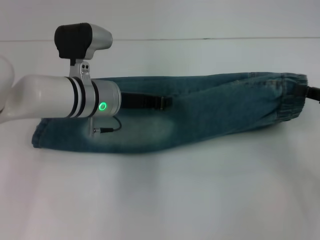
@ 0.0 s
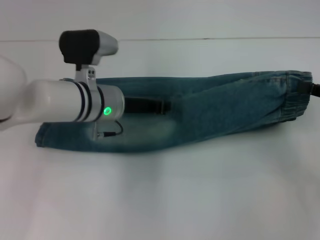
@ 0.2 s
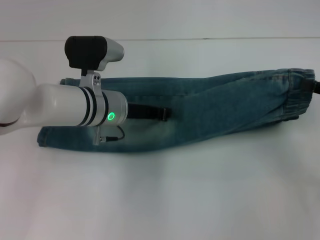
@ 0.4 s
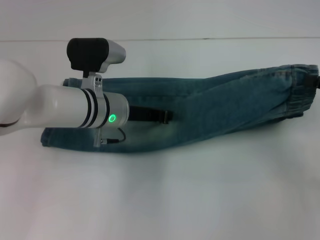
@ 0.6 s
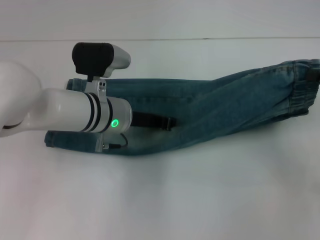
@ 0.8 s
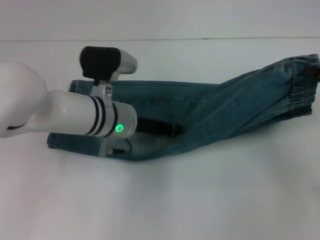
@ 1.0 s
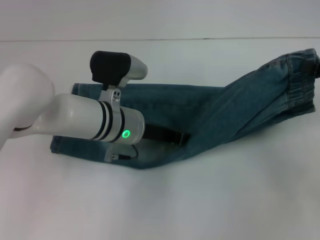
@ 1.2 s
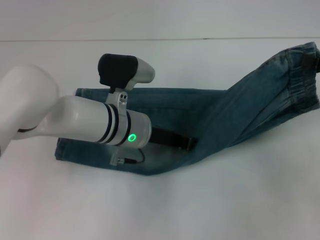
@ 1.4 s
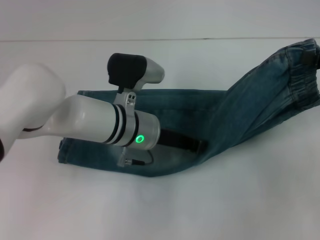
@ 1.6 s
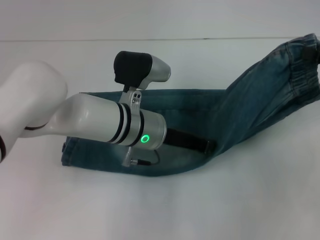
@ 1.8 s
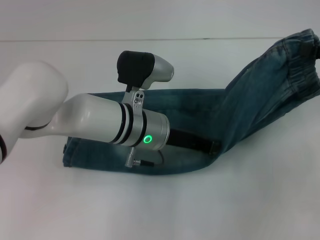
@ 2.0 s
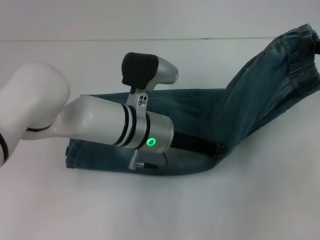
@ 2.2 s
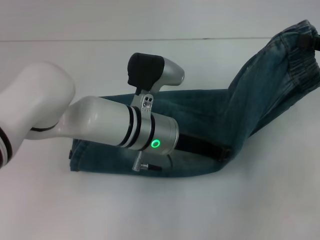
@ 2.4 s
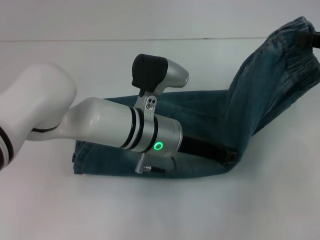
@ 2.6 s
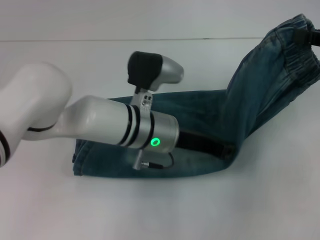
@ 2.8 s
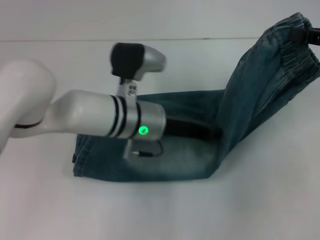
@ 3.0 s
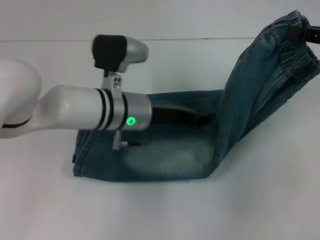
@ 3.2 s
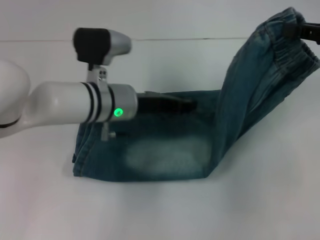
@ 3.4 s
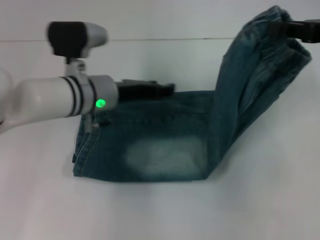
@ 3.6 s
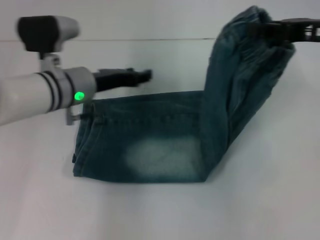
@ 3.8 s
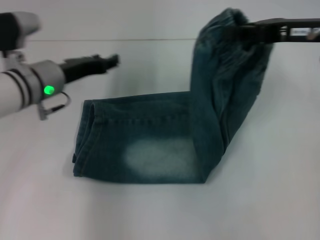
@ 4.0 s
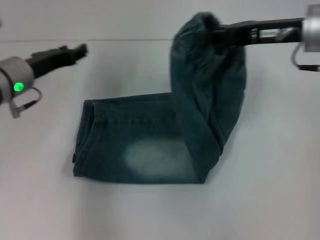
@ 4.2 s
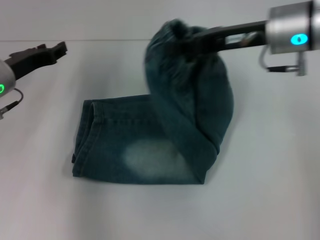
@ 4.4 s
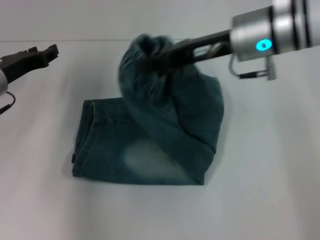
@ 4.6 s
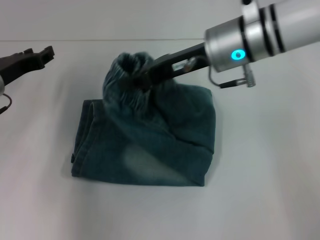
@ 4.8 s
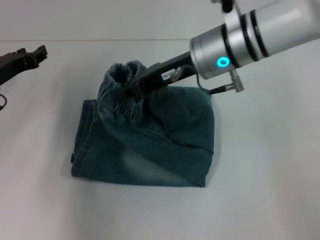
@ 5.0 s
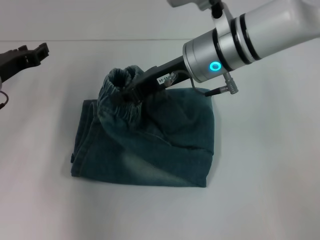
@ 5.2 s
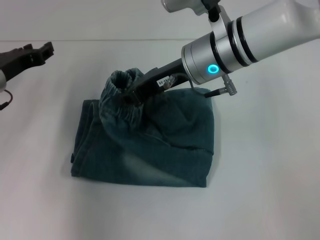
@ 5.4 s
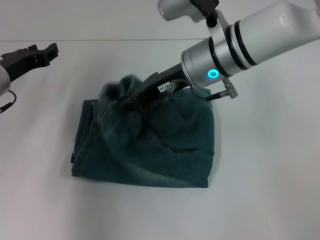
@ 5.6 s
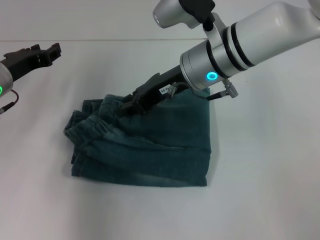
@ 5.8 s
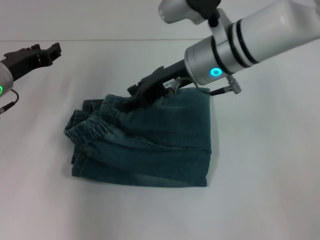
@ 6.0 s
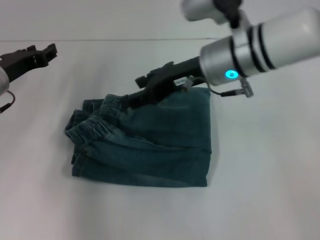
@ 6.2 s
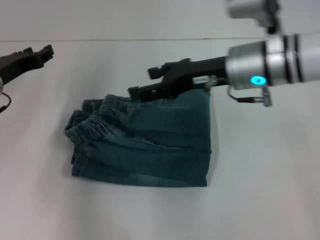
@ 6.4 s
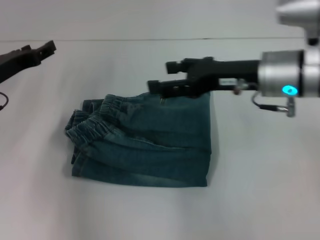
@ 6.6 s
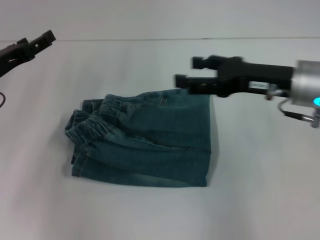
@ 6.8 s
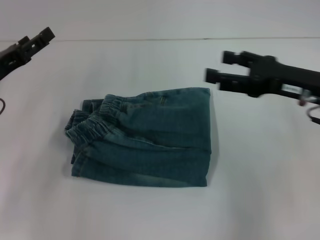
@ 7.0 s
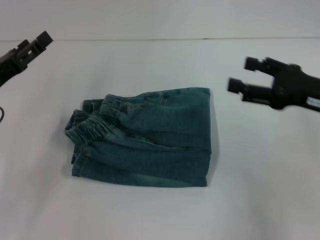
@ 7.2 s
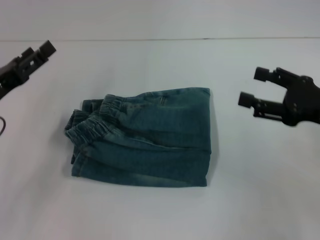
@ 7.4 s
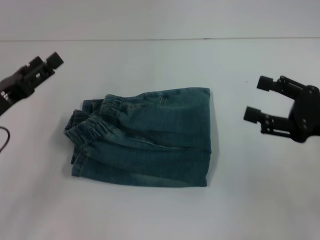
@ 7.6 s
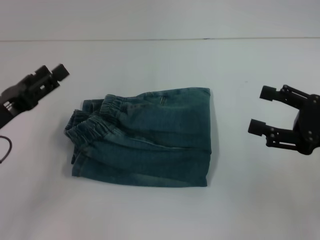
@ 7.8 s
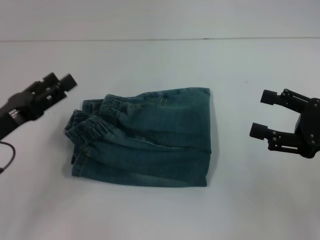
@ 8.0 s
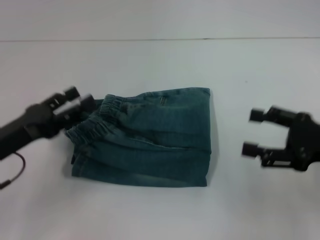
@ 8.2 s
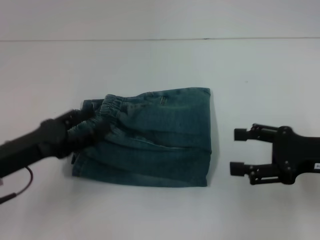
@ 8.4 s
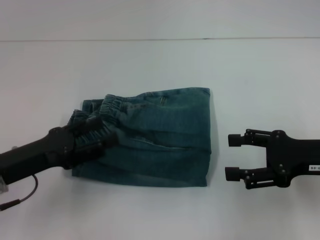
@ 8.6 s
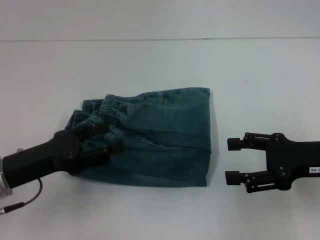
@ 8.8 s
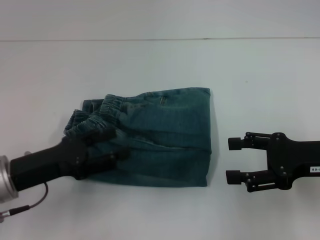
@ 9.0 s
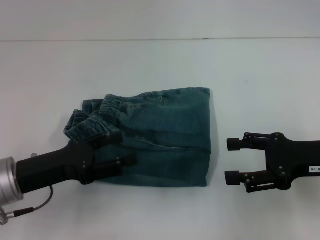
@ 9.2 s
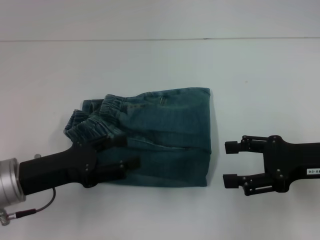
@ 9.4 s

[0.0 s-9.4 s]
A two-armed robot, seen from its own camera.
Step, 0.0 to 3.0 s: Press the middle of the pants with your left hand.
Step, 3.2 to 5.8 s: Fold to the left with your right hand.
0.0 to 1.6 s: The right gripper goes some 5 cm upward, while the left gripper is displaced to the right by about 5 cm.
3.2 to 4.8 s: Both grippers travel together to the left, some 20 cm. The left gripper opens its fingers.
4.8 to 6.2 s: The right gripper opens its fingers.
6.2 to 7.8 s: The left gripper goes about 10 cm backward, and opens. Meanwhile the right gripper moves to the right and backward, about 25 cm, and opens its fingers.
7.8 to 9.4 s: The left gripper shifts by approximately 5 cm.
